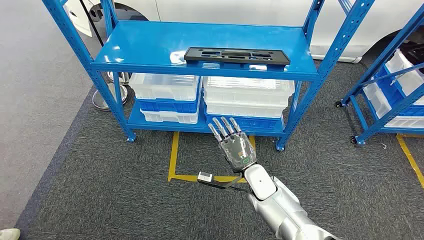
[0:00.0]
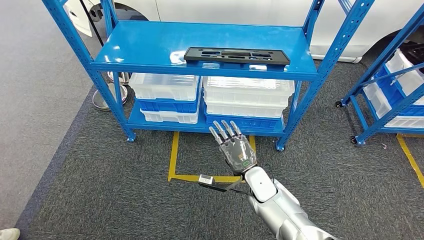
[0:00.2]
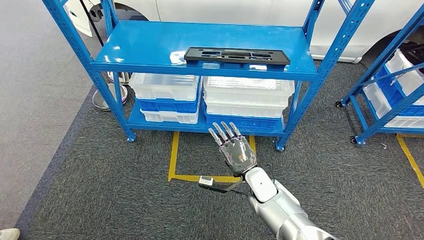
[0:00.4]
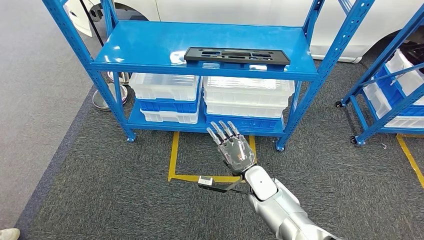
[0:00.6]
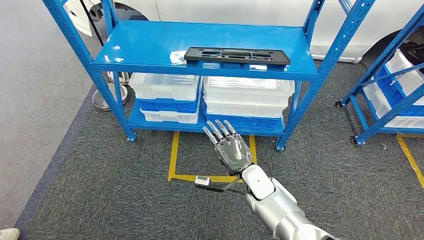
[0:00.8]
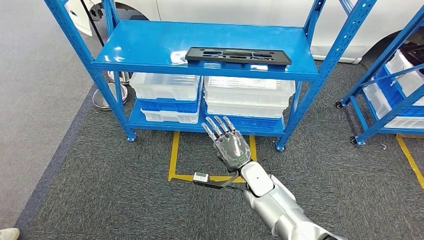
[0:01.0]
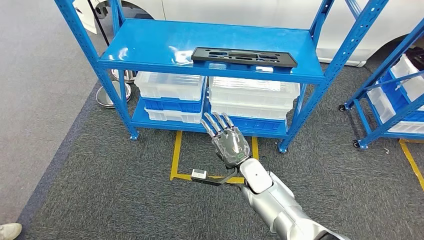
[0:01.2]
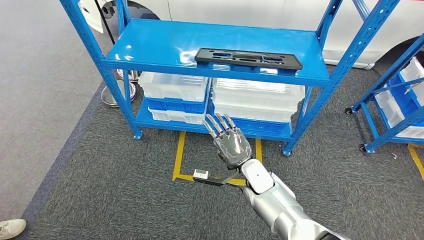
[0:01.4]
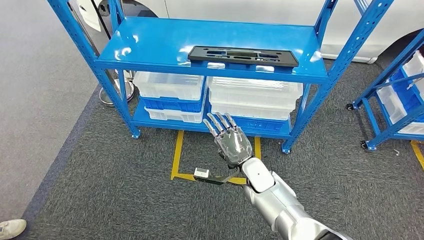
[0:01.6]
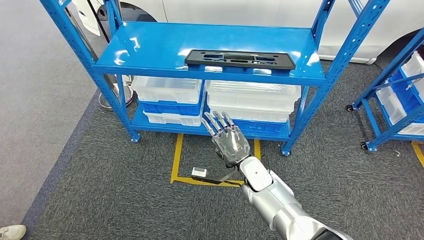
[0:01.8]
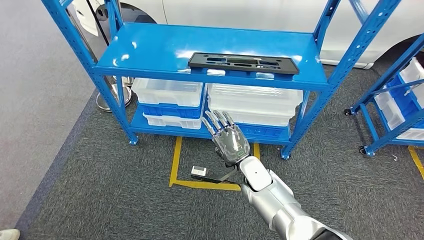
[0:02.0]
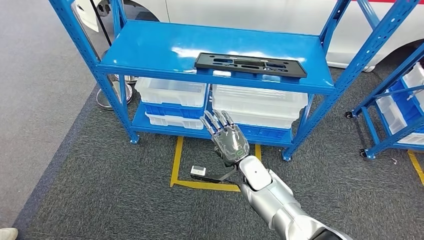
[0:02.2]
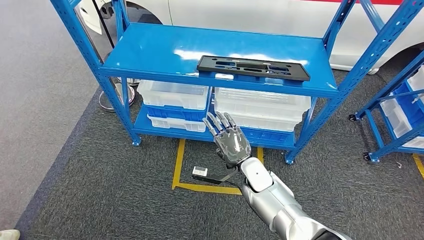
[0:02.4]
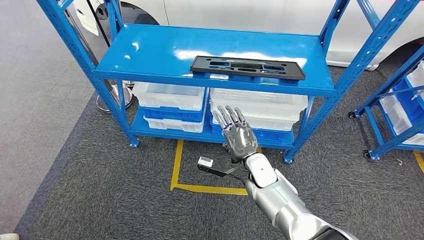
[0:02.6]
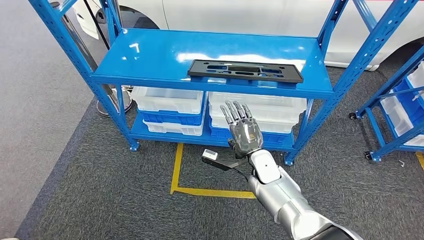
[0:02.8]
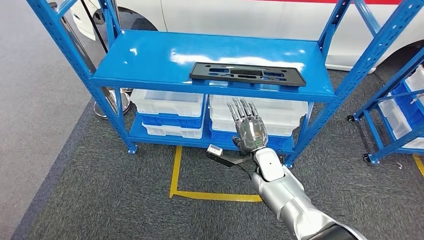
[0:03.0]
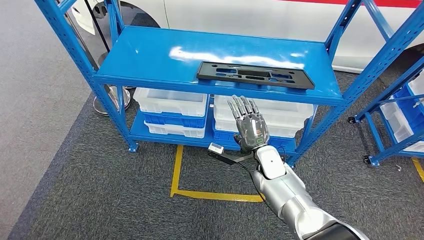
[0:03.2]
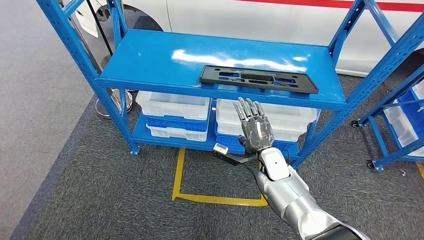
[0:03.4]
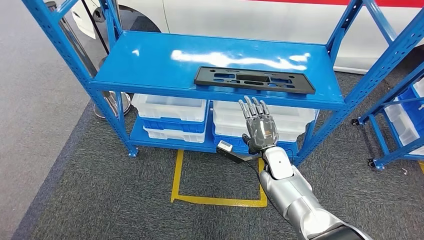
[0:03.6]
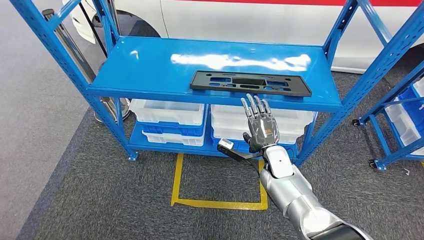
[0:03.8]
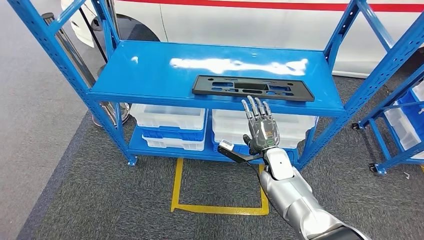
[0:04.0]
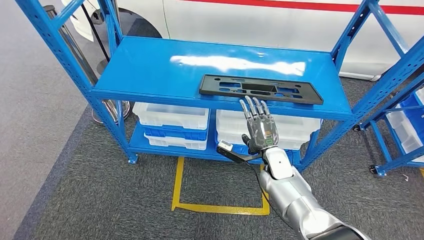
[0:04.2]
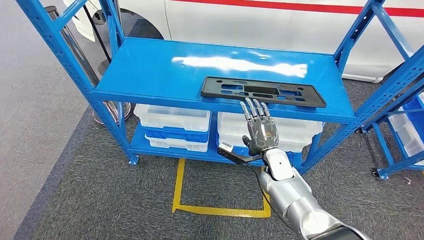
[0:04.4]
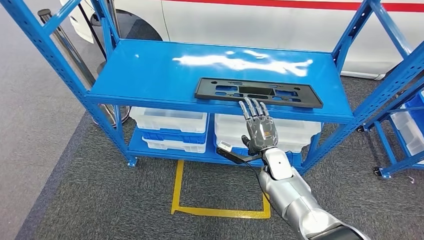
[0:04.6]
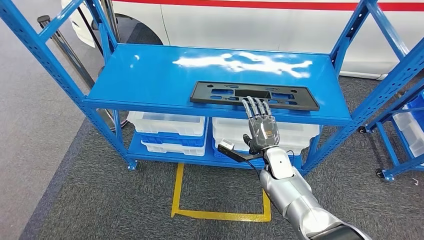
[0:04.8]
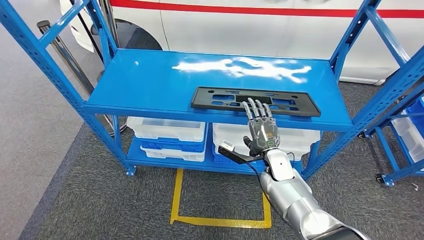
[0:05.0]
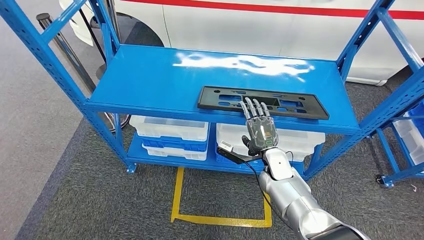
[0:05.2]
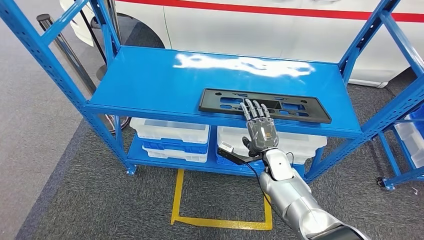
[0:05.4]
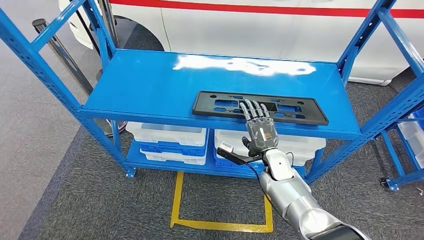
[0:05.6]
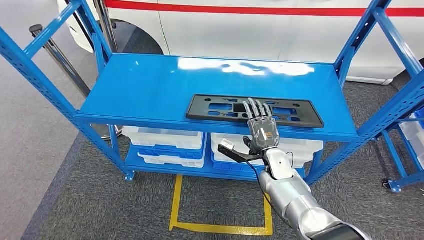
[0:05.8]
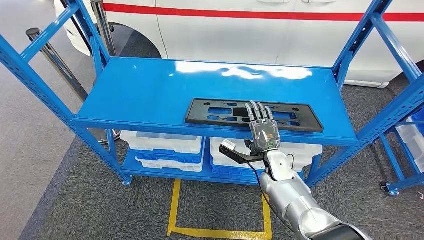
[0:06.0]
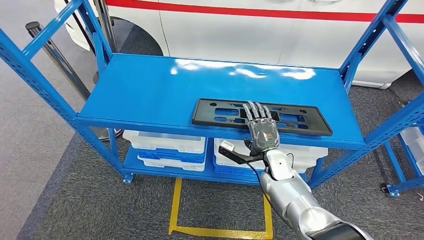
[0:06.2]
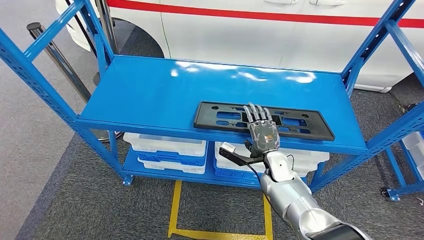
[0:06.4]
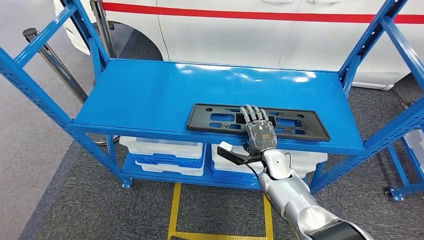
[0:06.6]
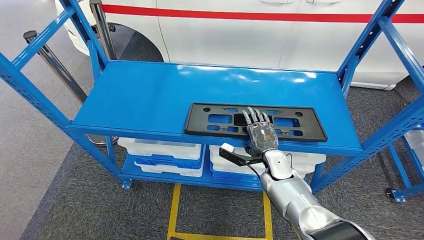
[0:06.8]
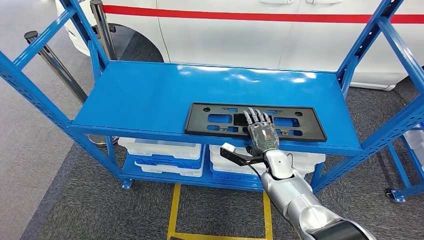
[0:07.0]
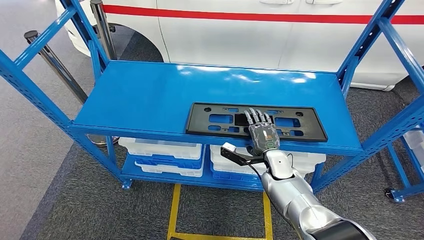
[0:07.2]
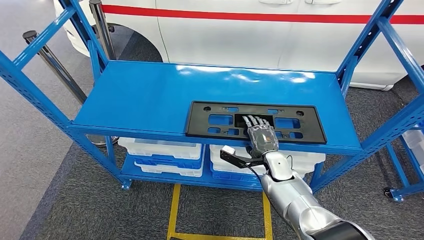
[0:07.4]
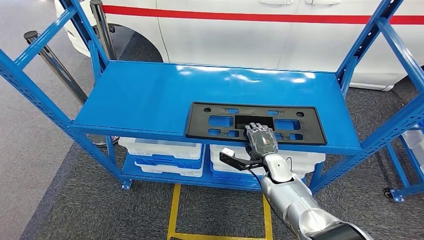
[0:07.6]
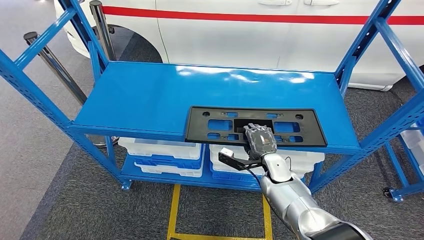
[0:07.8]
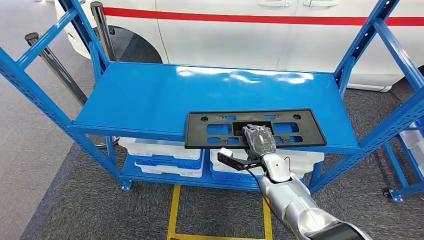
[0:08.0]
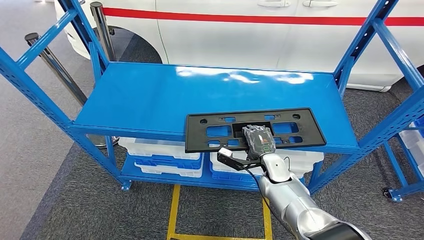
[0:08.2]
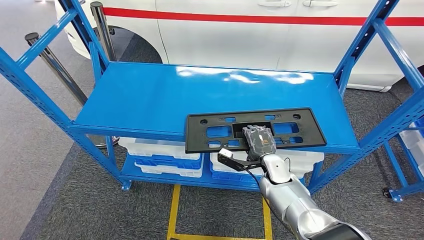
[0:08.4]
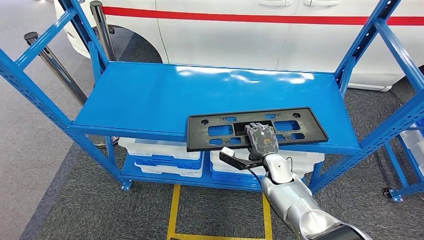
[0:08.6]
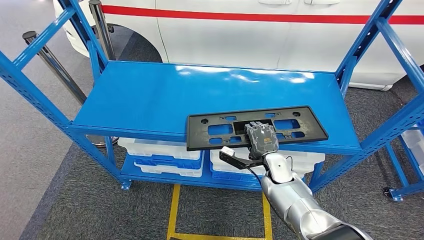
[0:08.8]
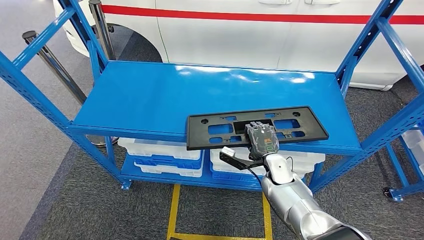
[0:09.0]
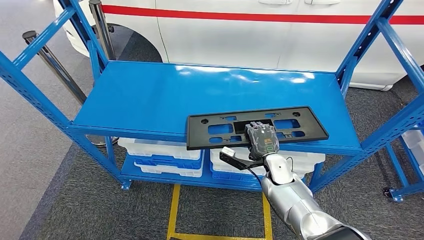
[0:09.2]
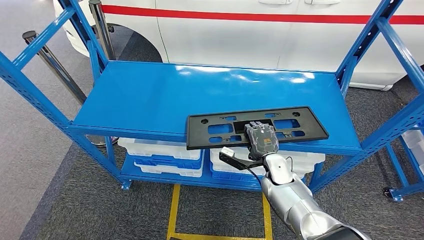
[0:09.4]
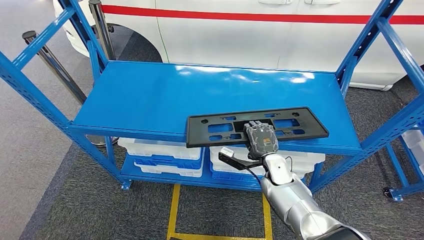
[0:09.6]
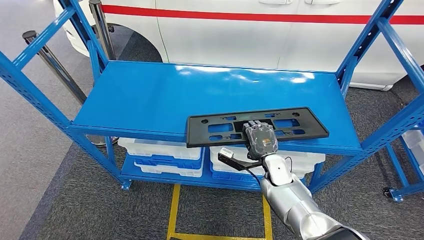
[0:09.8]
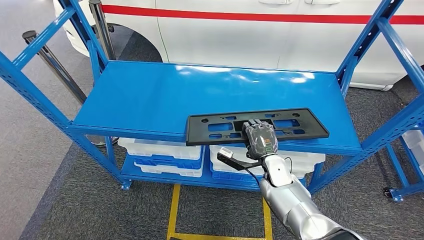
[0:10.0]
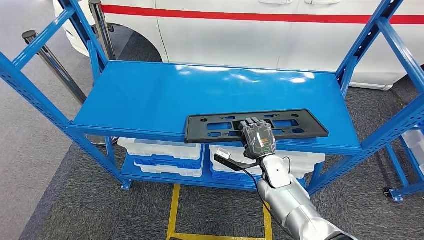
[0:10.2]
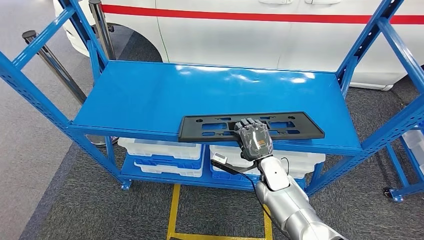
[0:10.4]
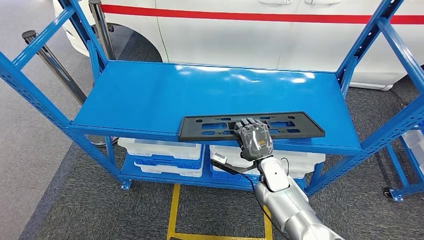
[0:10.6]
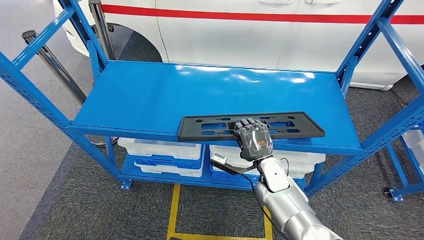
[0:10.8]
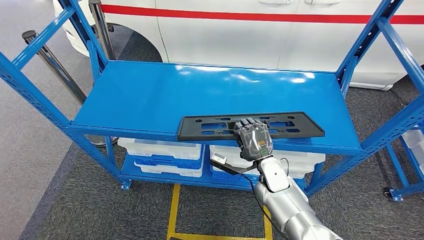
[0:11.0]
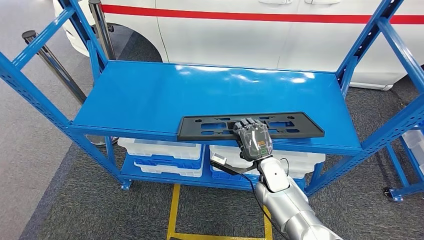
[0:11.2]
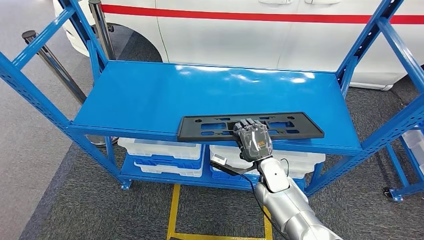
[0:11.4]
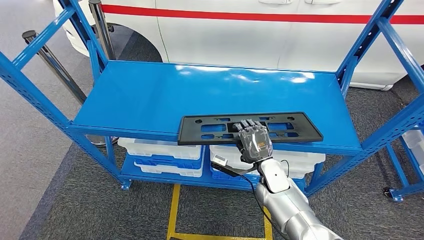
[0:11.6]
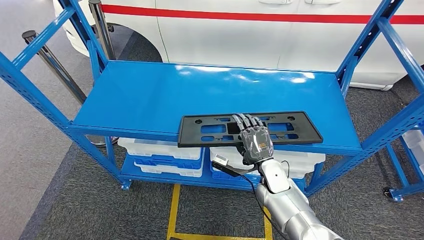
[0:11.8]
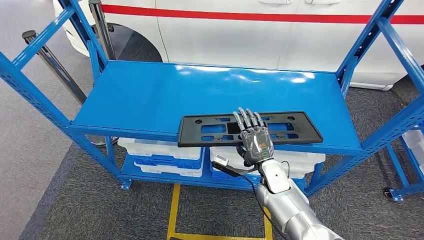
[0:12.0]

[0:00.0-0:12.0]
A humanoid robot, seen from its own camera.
0:07.6 to 0:09.0: The hands move only a little.
0:09.0 to 0:10.4: The hands stay close to where they were, moving slightly.
0:10.4 to 0:12.0: Both hands stay put.

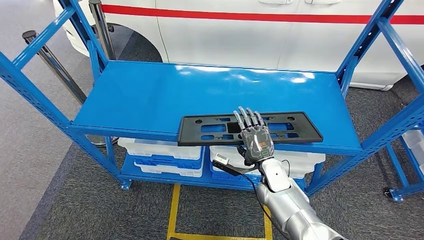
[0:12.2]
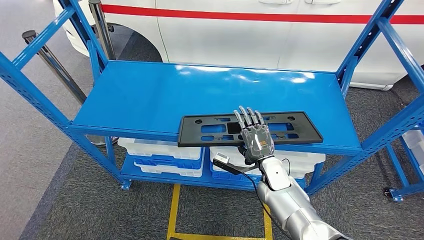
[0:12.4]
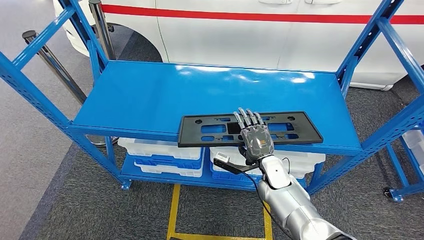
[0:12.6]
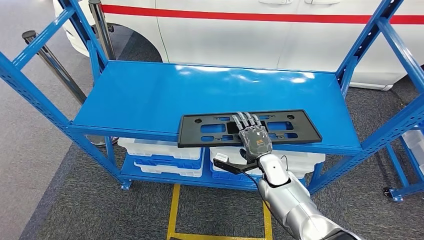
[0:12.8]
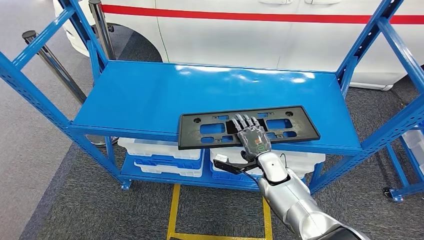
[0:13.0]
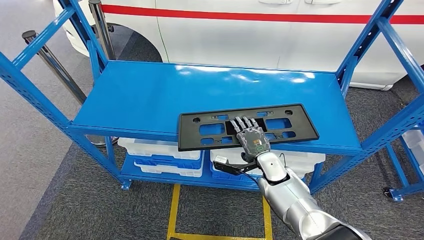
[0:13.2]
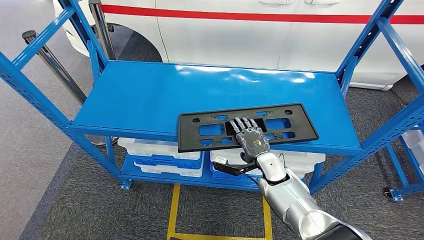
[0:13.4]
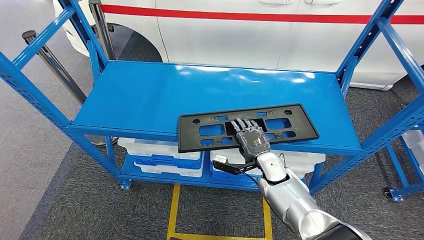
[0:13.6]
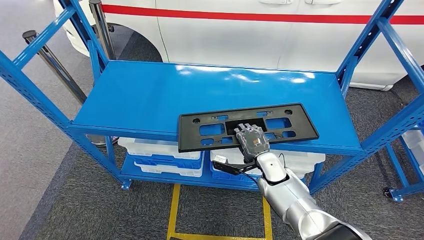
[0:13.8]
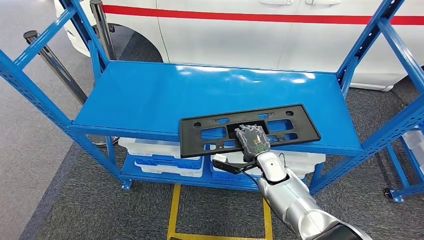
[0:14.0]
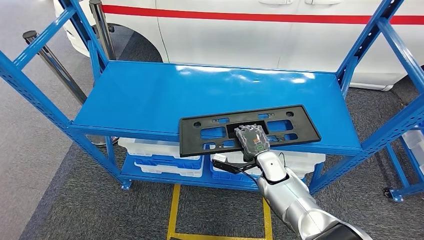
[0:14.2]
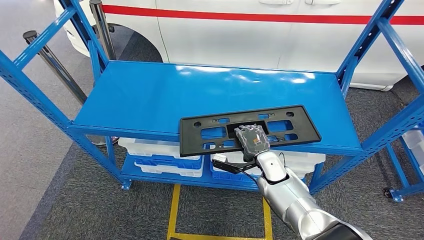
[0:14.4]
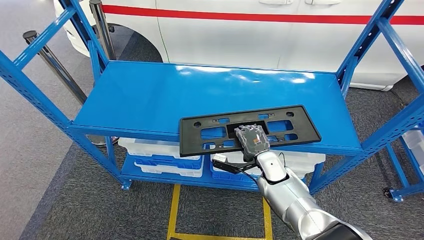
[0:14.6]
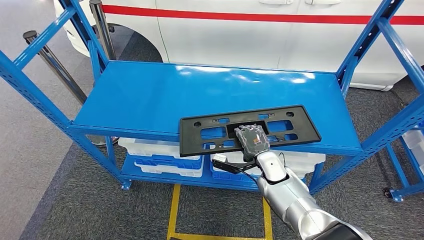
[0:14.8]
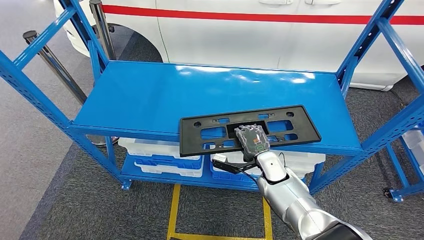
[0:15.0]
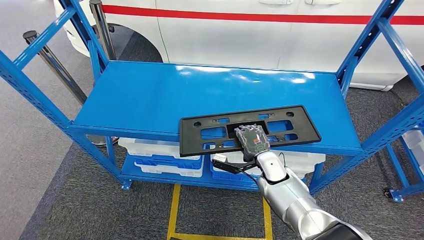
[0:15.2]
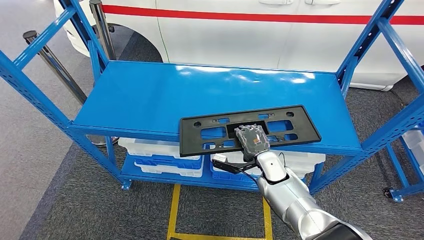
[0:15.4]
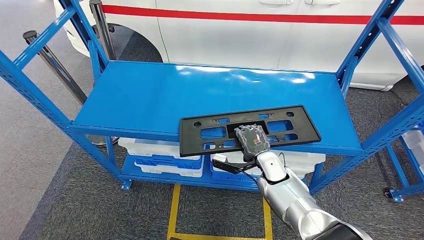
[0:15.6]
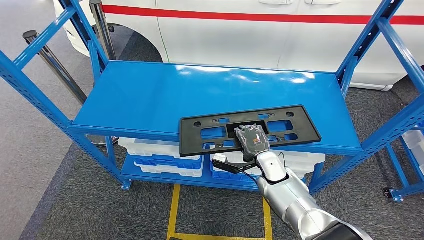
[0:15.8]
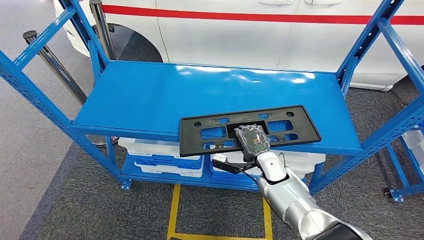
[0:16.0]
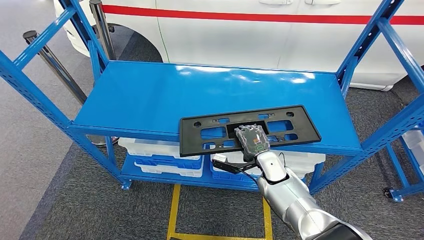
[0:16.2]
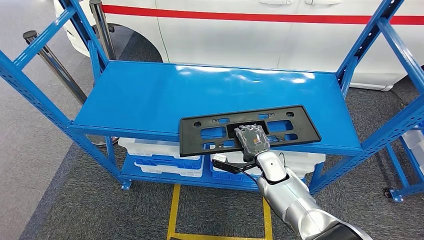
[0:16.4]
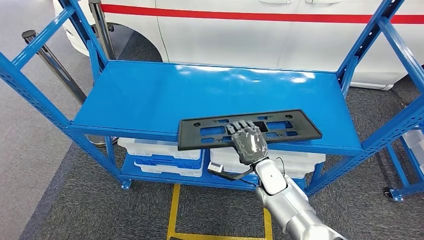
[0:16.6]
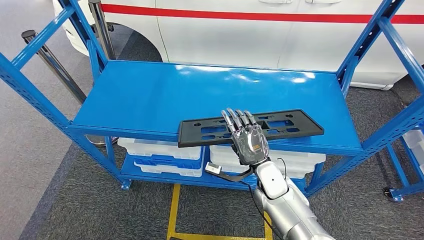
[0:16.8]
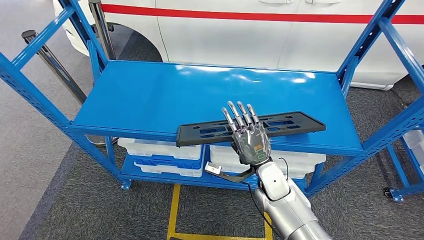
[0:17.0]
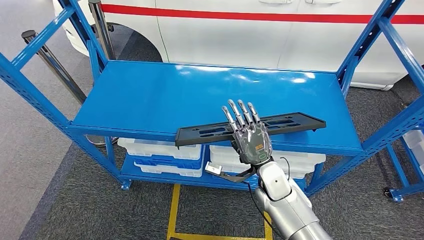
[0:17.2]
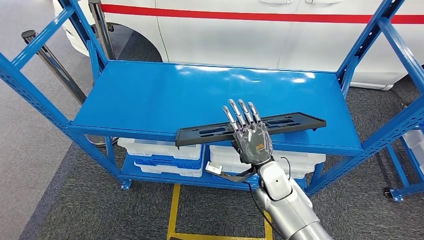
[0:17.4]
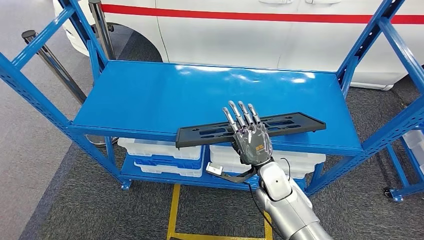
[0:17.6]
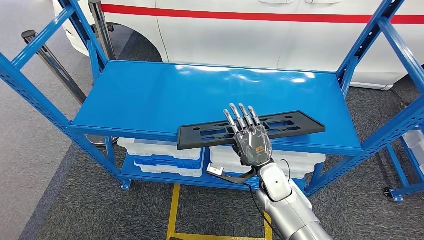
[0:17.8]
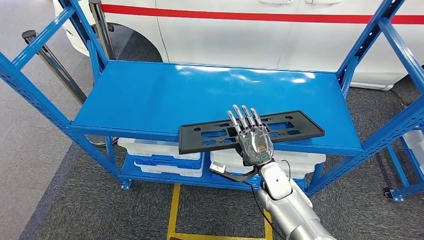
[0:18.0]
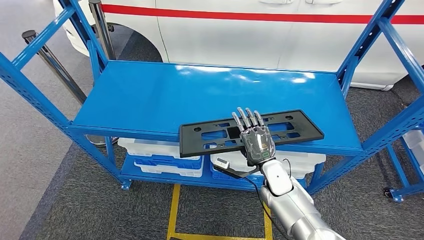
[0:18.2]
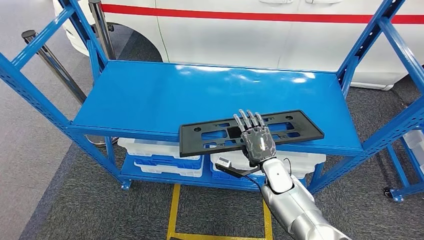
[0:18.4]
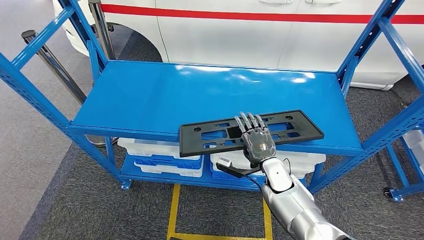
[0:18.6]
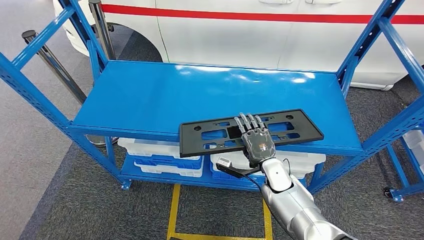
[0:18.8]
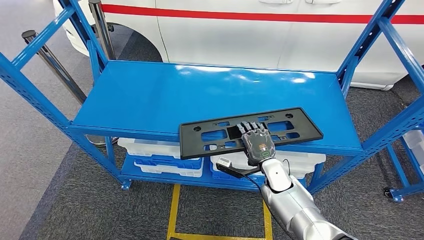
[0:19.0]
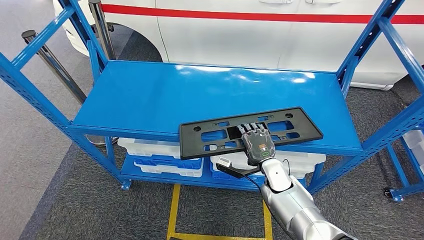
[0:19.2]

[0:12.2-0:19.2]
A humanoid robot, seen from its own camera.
0:13.6 to 0:16.4: The two hands keep their place.
0:16.4 to 0:17.8: The right hand ends up approximately 5 cm from where it was.
0:17.8 to 0:19.2: The right hand changes place by approximately 5 cm.
